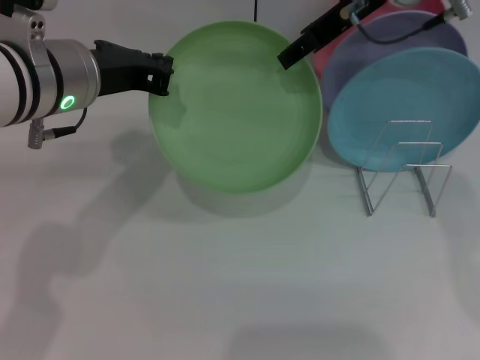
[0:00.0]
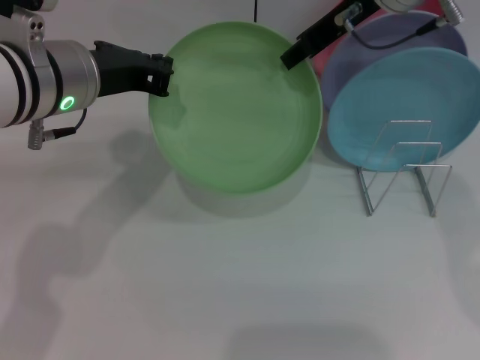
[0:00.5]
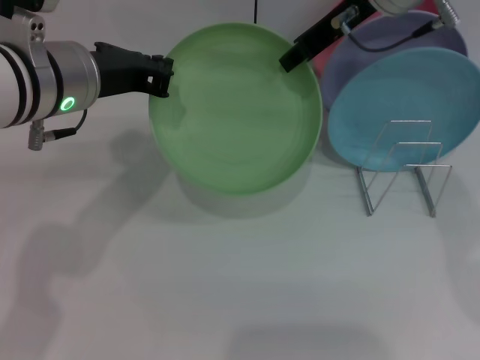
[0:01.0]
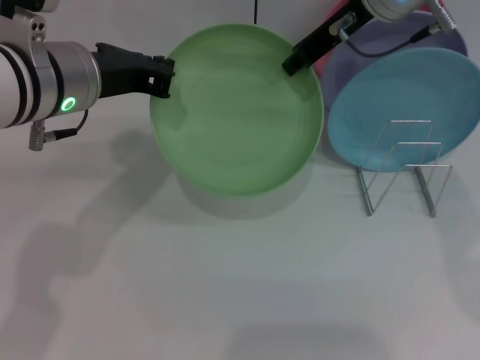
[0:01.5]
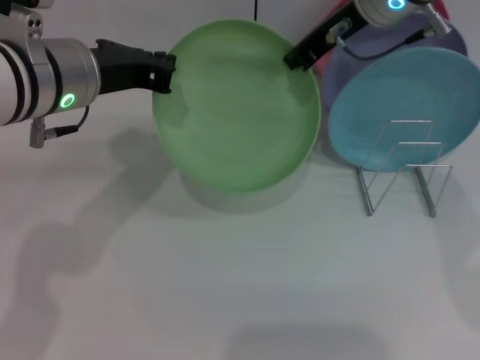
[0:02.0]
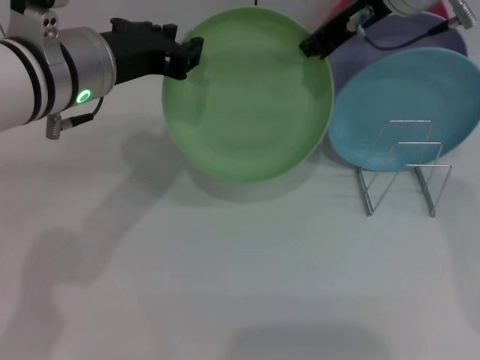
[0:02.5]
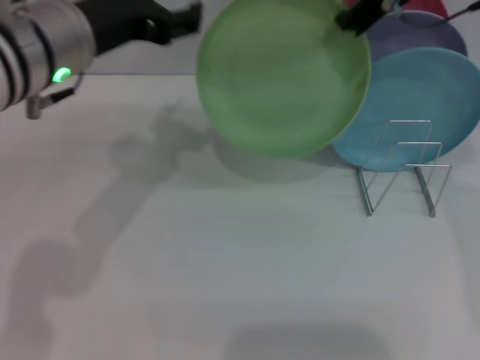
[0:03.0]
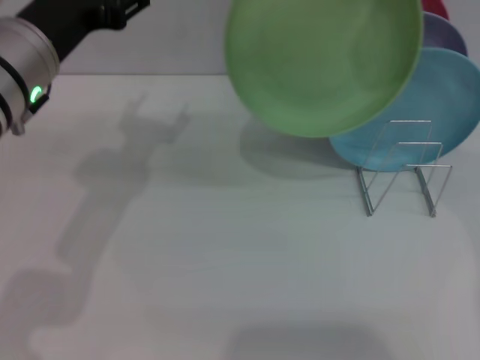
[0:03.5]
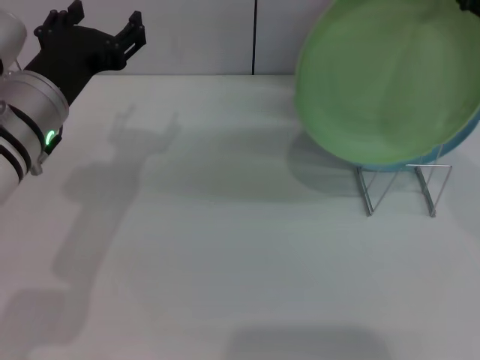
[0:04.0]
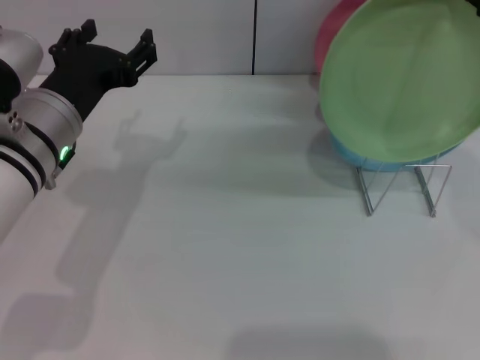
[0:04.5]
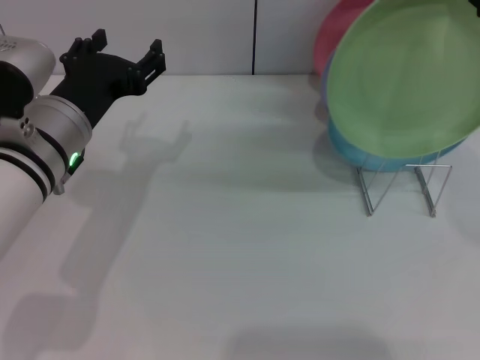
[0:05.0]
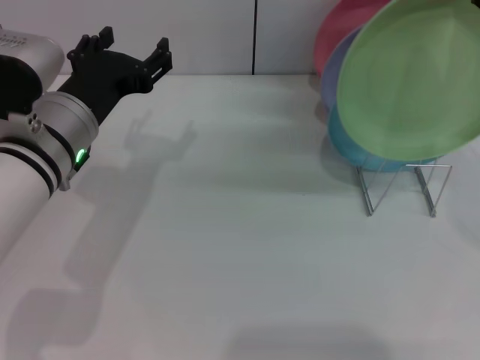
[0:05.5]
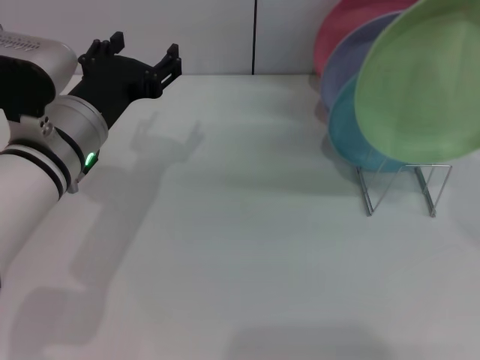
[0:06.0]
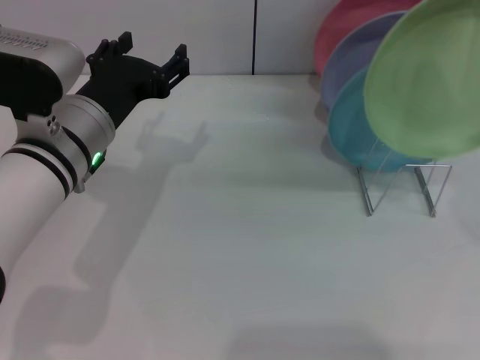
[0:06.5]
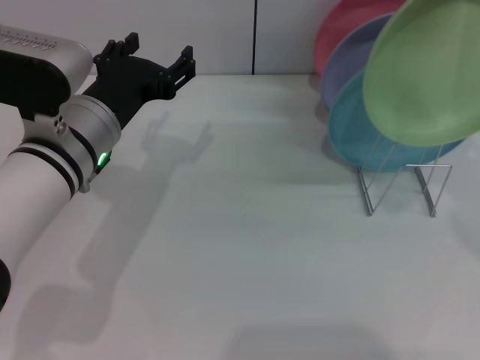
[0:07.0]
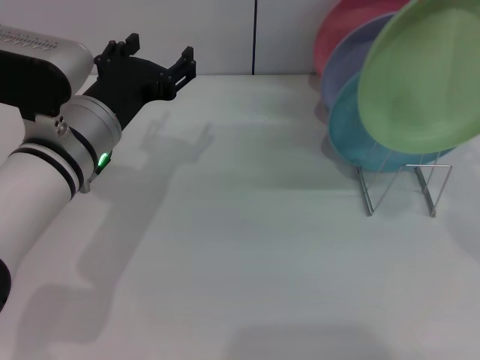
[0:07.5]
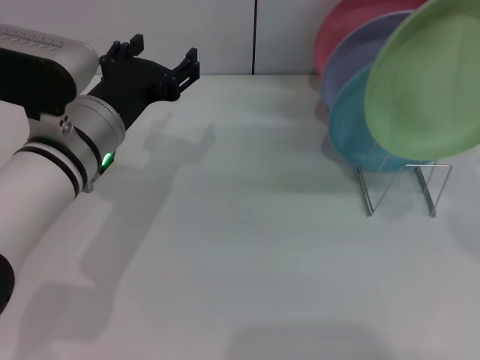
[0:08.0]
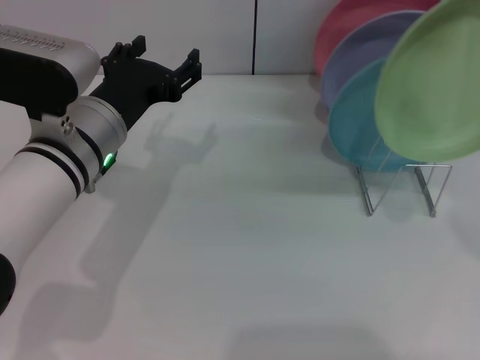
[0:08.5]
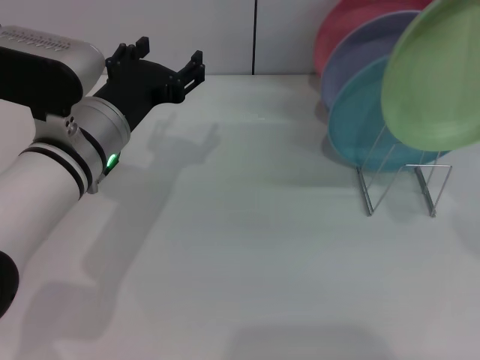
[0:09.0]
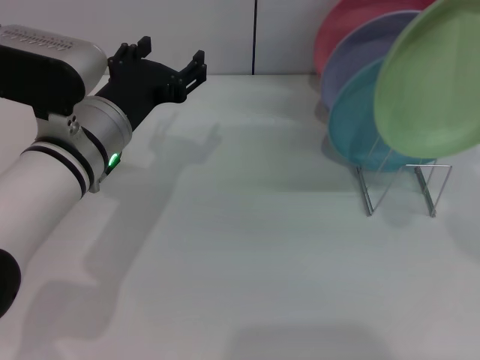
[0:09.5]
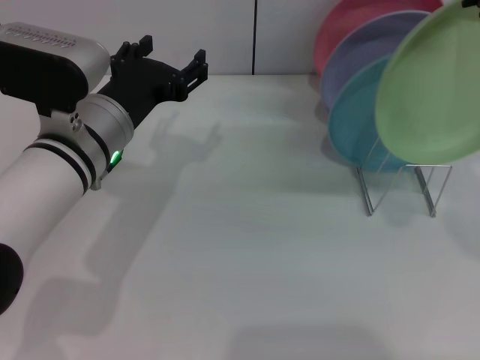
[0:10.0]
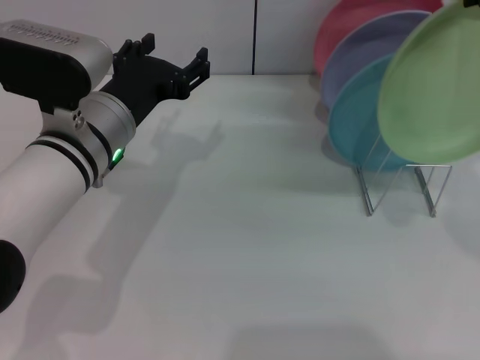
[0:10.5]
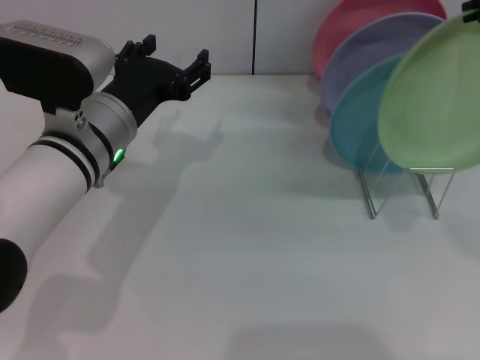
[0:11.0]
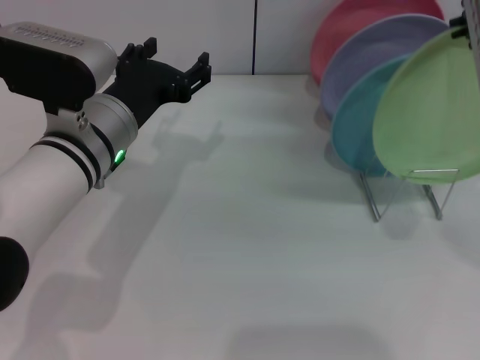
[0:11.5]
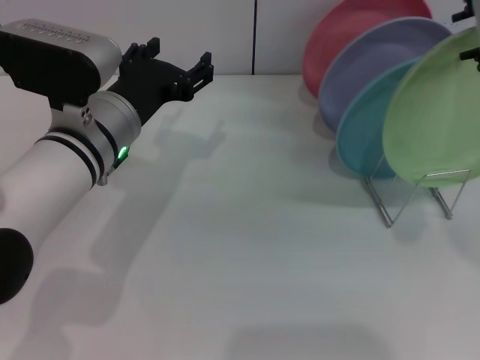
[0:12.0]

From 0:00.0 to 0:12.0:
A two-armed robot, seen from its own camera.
Task of the whole recording: Grip the plate with one hand, pass it to the other, then set it on the shelf.
Step, from 0:00.0 to 0:03.0: Pass the plate from the left gripper to the right gripper.
From 0:00.0 to 0:02.0: The right gripper closes.
From 0:02.0 to 0:04.0: The right gripper is displaced backward, upward and to the right by some 15 cm, while the left gripper moves downward, some 5 cm, and opens its fingers.
From 0:04.0 to 0:06.0: The grippers move only a little.
From 0:06.0 to 0:10.0: The grippers move only a little.
From 0:10.0 to 0:12.0: The grippers move only a little.

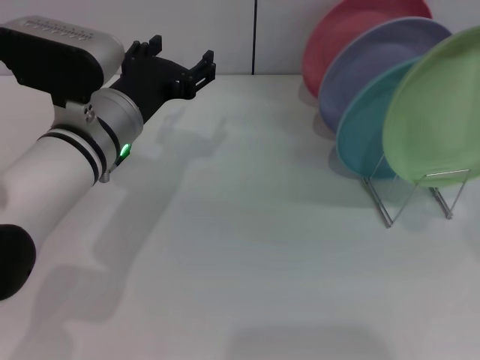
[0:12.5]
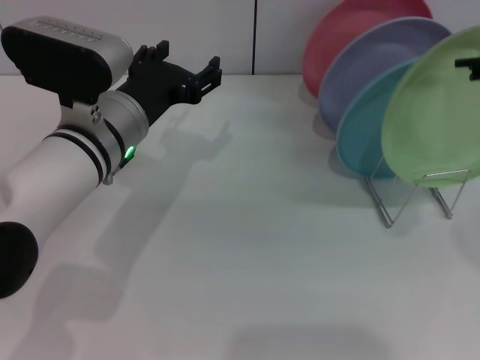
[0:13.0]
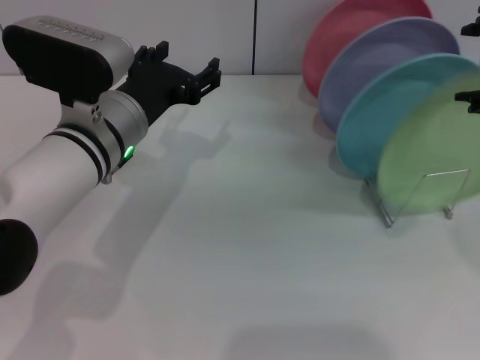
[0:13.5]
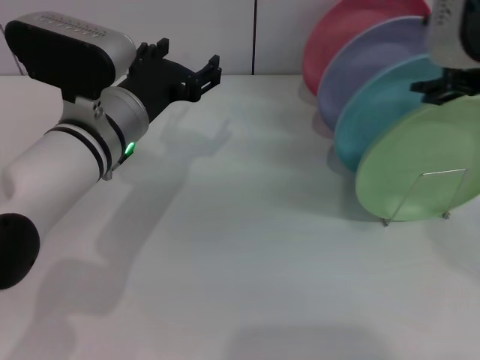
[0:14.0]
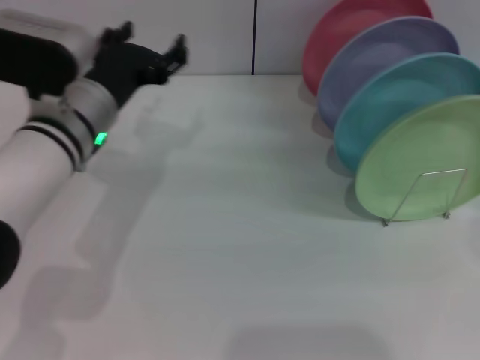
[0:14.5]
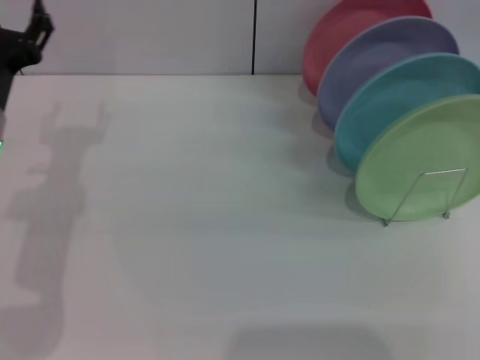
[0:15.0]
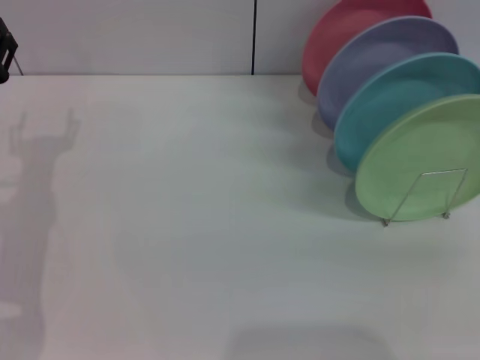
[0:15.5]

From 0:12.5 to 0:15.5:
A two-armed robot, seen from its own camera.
Task of the whole recording: Grip the plate with one hand, pass it to the other, then set it on the shelf.
From 0:12.5 to 0:14.0: The right gripper is displaced to the left by roughly 5 cm.
From 0:14.0 to 0:15.5: The right gripper travels to the right by some 20 cm, while the left gripper moves to the left, about 15 cm.
